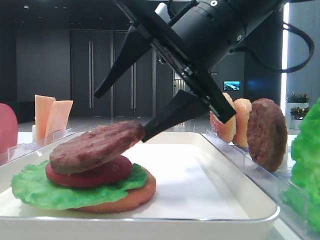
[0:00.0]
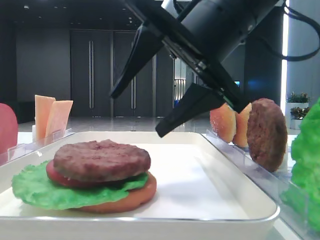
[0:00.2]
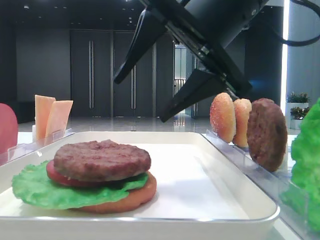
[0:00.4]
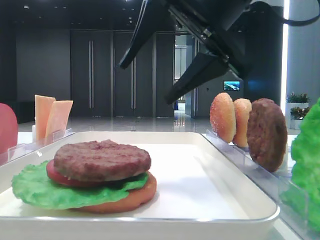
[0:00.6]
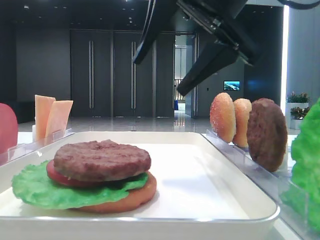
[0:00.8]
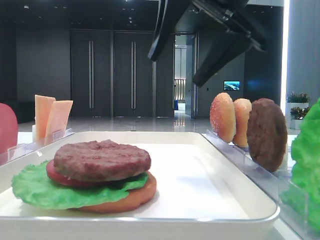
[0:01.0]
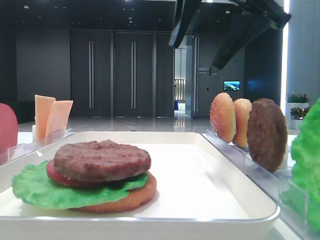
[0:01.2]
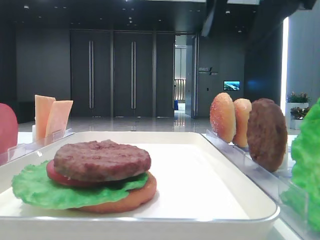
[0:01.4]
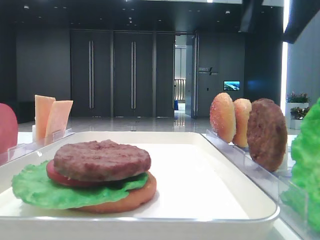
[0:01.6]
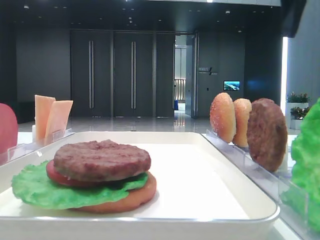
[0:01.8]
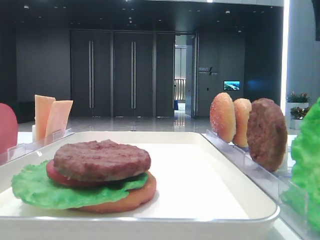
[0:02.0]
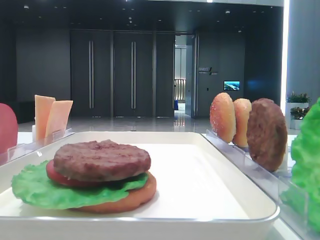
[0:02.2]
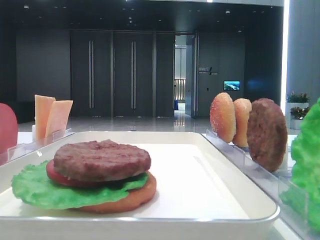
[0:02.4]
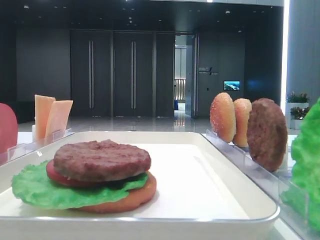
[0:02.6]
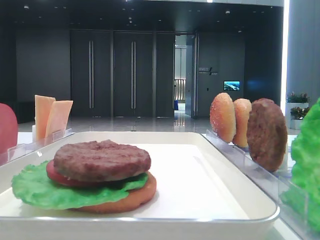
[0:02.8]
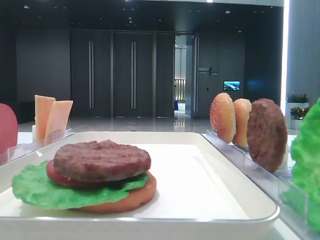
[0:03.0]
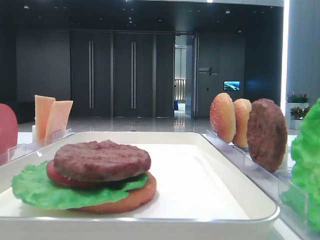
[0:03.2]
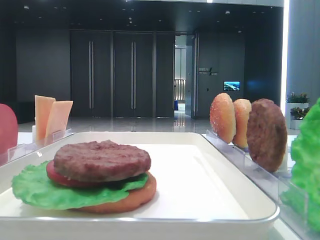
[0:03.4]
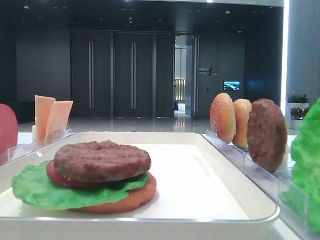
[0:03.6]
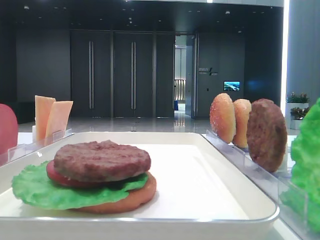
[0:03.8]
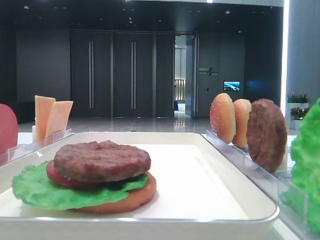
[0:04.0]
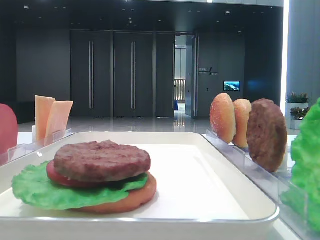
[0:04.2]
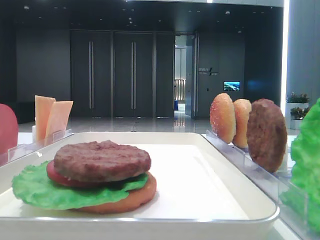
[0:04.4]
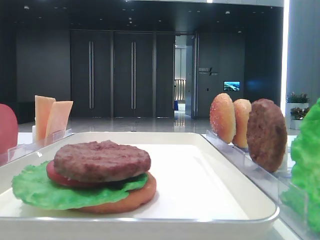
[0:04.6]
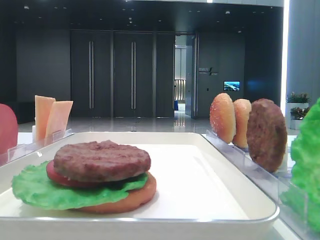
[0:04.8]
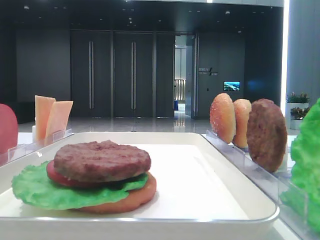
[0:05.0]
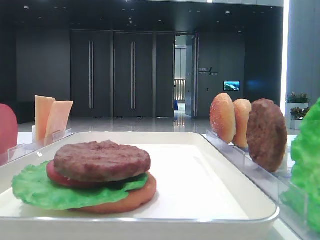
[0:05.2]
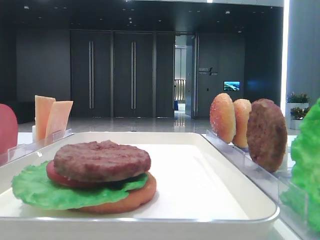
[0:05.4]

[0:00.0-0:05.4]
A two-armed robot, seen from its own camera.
0:00.0 to 0:01.4: The right gripper heads upward and to the right, covering approximately 15 cm.
0:01.4 to 0:02.8: The right gripper travels to the right by some 15 cm.

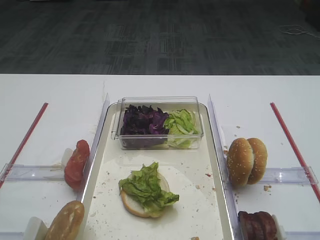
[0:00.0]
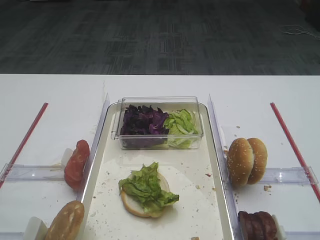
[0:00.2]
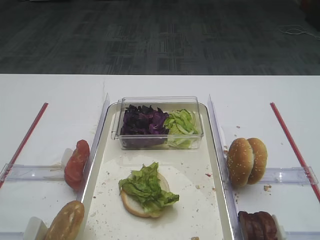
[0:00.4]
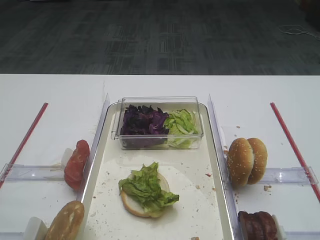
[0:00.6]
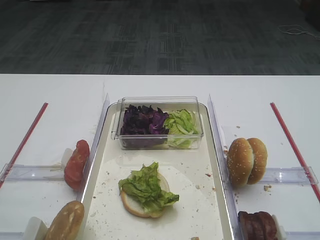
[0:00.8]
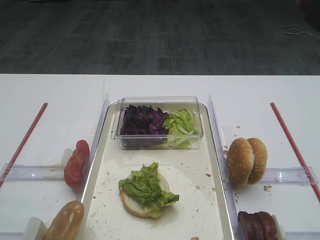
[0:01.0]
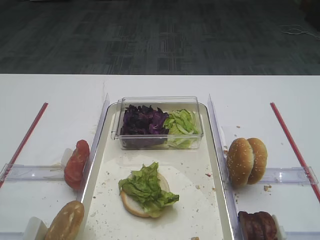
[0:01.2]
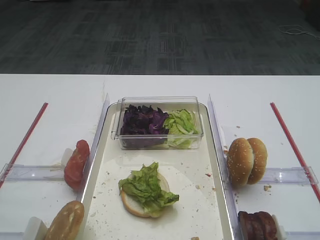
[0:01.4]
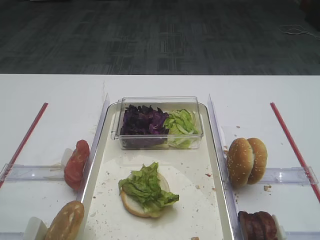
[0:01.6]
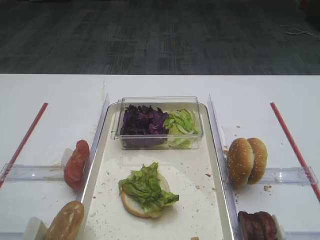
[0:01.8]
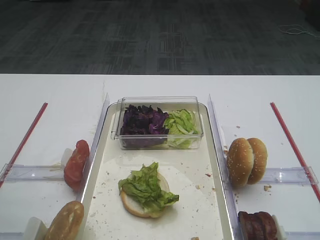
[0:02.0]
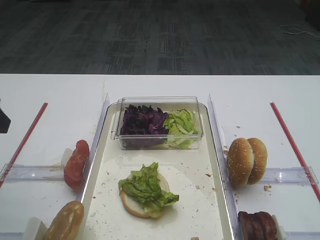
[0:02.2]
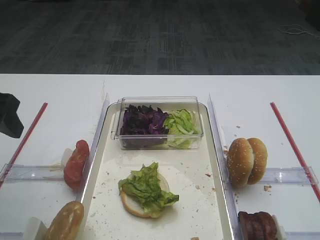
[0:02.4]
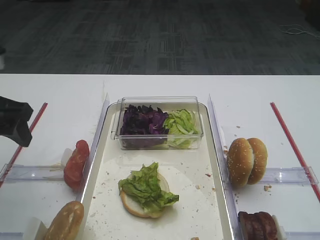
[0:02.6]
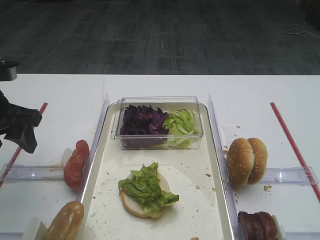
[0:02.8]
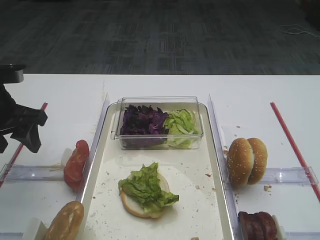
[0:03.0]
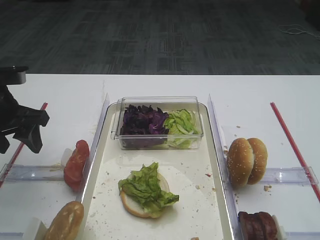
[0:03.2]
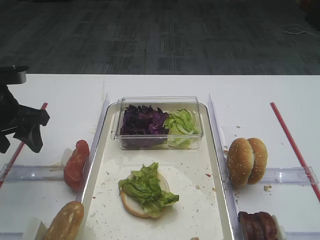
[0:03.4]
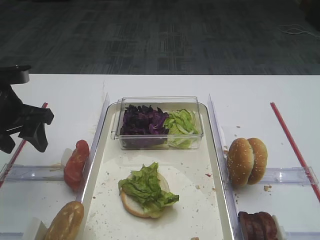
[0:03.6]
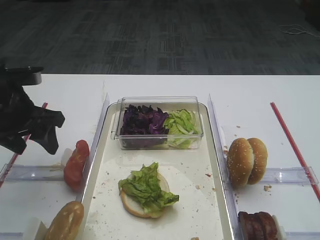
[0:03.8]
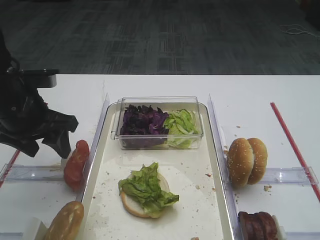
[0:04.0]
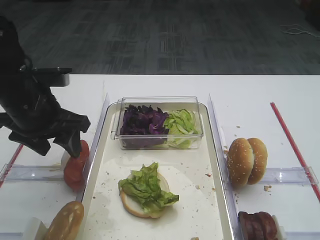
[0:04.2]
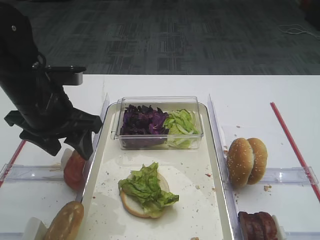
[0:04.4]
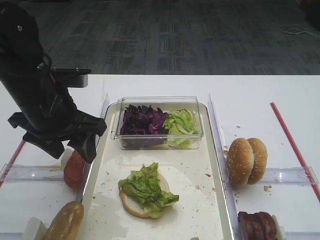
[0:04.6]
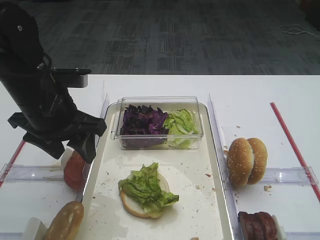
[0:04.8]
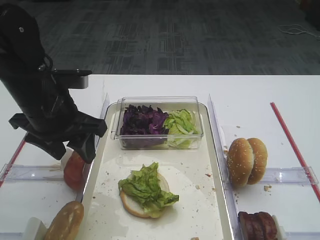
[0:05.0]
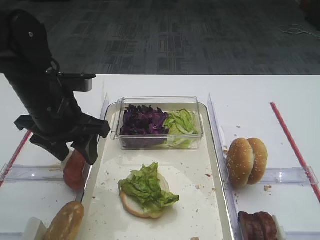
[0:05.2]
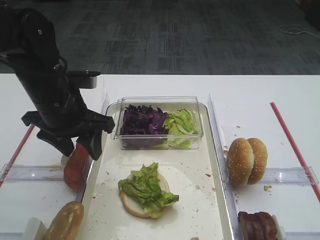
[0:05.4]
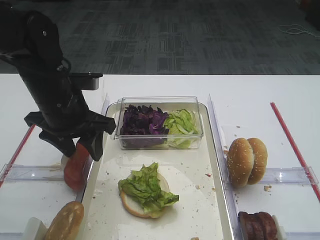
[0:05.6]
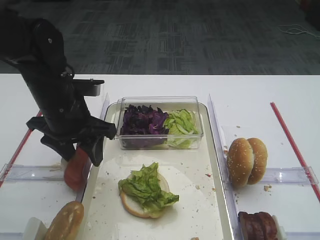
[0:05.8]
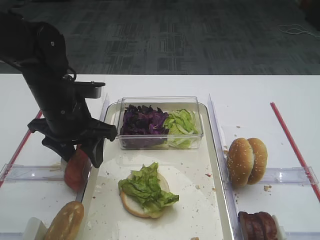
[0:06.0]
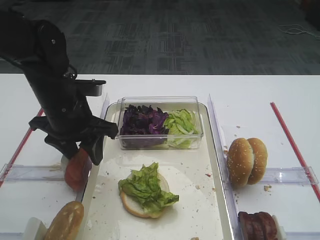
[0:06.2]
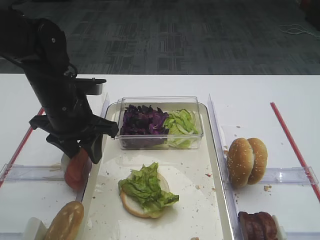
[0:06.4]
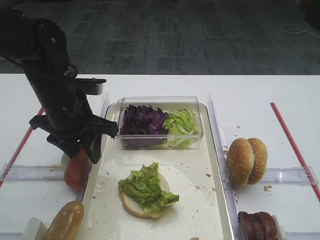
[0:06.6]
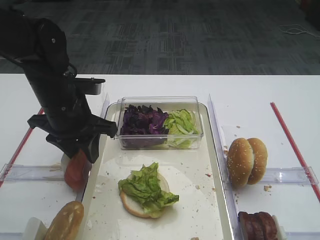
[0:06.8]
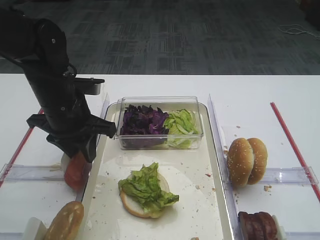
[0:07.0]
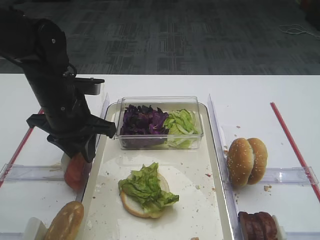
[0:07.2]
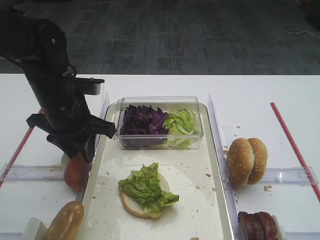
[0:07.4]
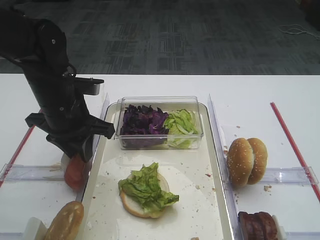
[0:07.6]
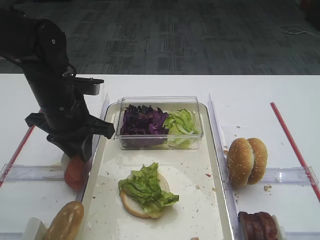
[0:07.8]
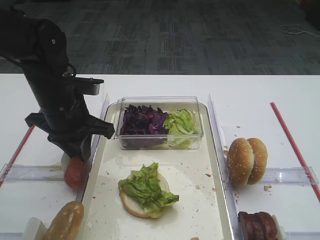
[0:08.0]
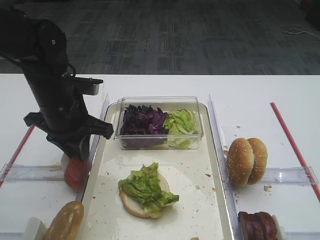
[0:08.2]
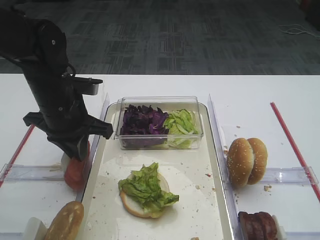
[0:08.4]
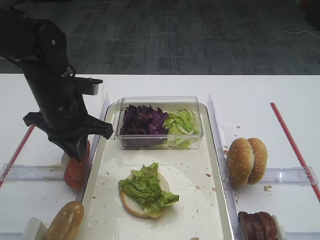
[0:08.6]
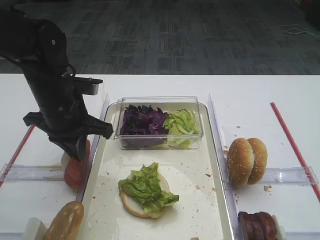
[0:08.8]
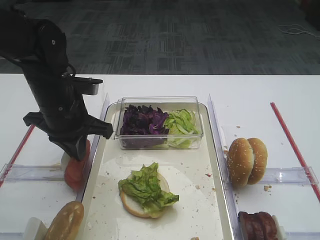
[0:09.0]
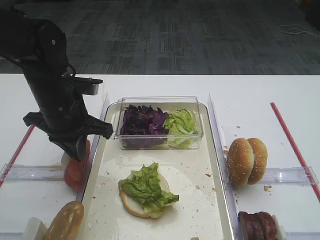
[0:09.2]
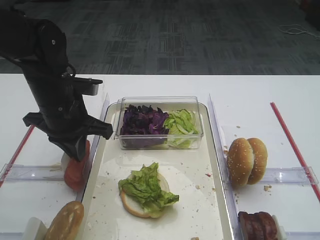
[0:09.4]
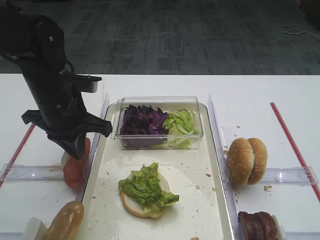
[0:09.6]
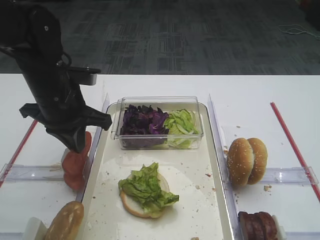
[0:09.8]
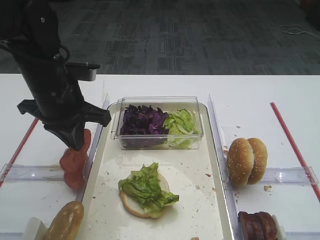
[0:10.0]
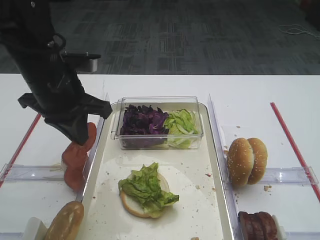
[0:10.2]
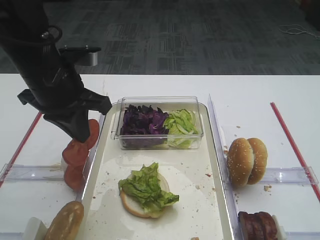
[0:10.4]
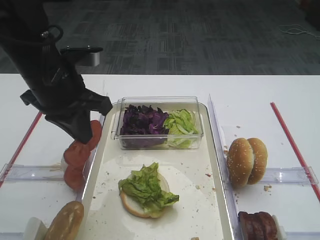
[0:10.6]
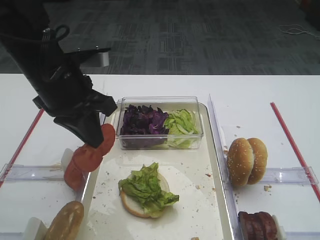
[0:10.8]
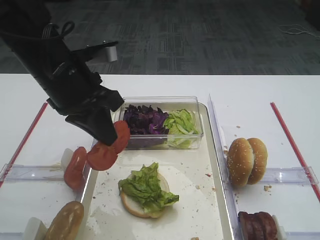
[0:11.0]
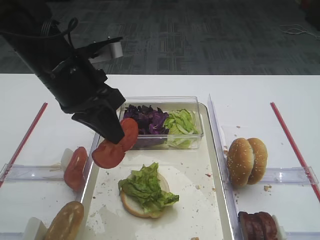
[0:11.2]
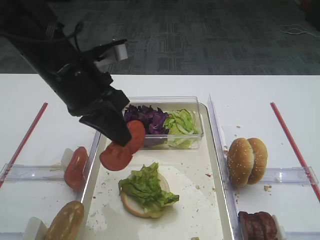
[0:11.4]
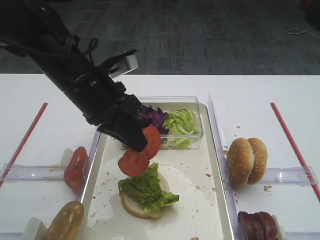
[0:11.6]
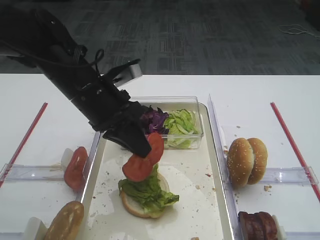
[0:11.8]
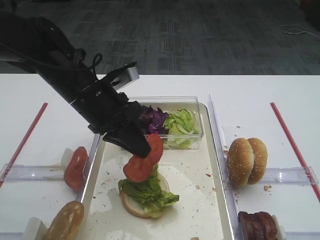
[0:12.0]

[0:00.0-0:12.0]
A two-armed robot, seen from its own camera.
Step, 0:00.0 to 0:10.4: Pick up the tomato slice with the left gripper.
0:01.6 to 0:03.0: The left gripper travels forward by about 25 cm.
0:03.0 to 0:04.4: The left gripper is displaced to the right by approximately 10 cm.
0:04.4 to 0:06.0: The grippers move only a little.
0:06.0 to 0:07.6: The left gripper closes its fingers.
0:07.6 to 0:09.0: The two grippers keep their place.
0:09.0 to 0:10.4: The left gripper moves upward, roughly 5 cm.
0:10.4 to 0:12.0: The left gripper moves to the right, about 5 cm.

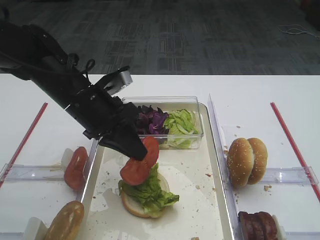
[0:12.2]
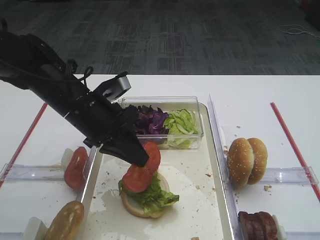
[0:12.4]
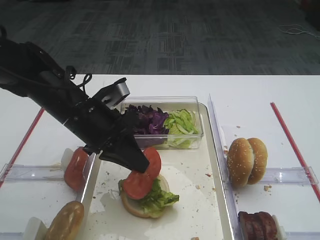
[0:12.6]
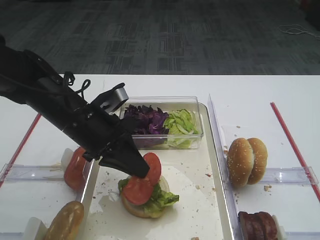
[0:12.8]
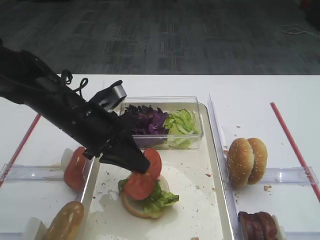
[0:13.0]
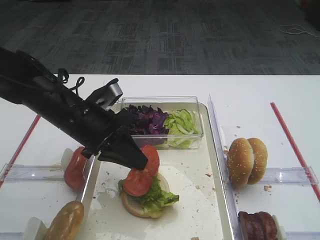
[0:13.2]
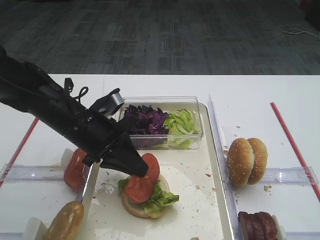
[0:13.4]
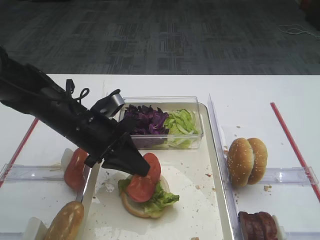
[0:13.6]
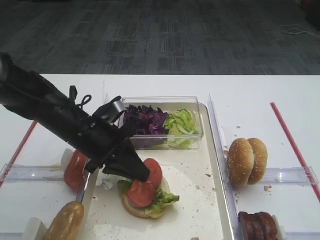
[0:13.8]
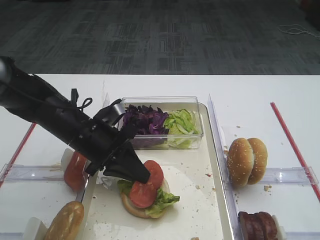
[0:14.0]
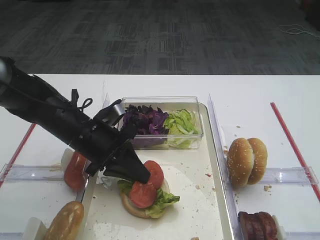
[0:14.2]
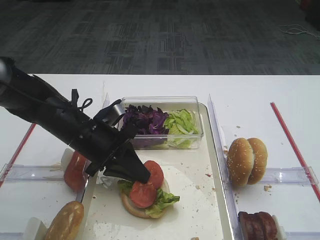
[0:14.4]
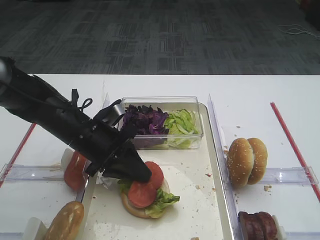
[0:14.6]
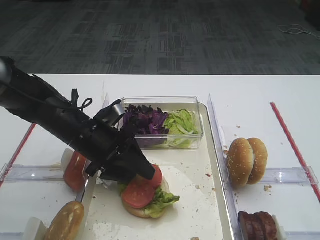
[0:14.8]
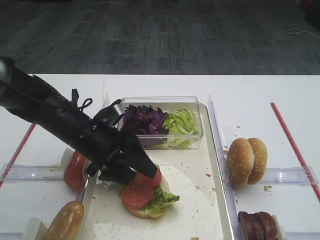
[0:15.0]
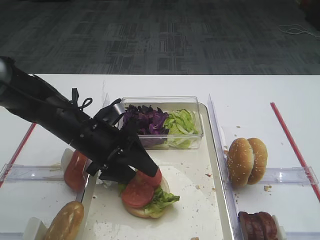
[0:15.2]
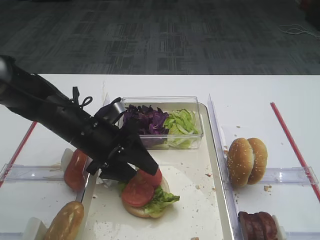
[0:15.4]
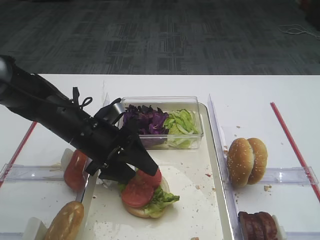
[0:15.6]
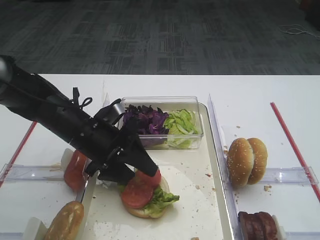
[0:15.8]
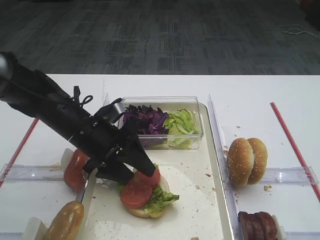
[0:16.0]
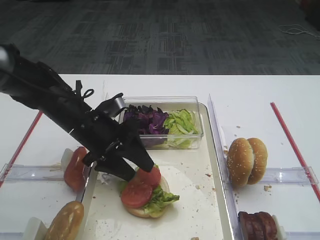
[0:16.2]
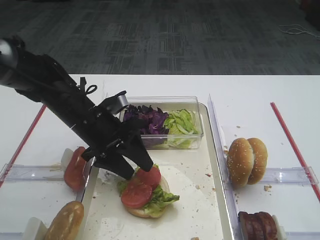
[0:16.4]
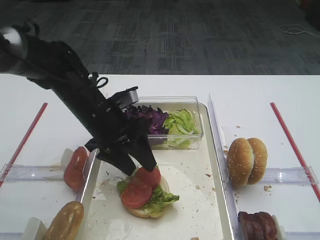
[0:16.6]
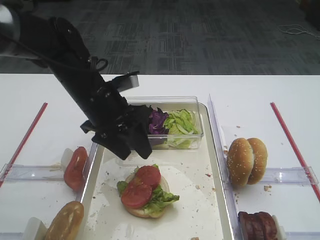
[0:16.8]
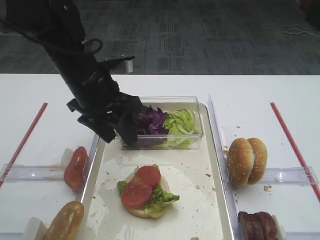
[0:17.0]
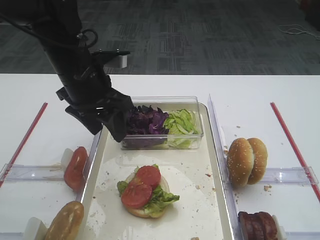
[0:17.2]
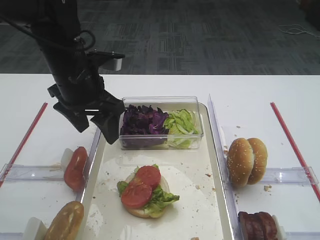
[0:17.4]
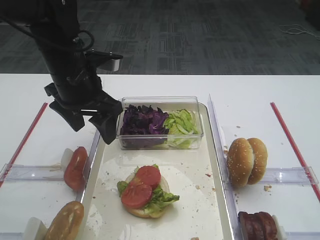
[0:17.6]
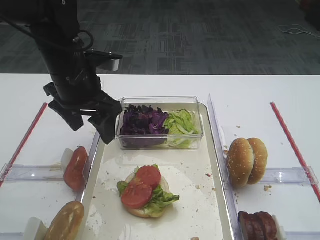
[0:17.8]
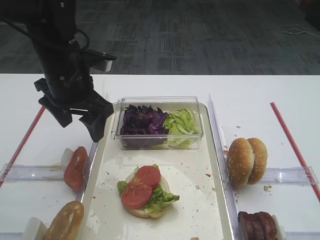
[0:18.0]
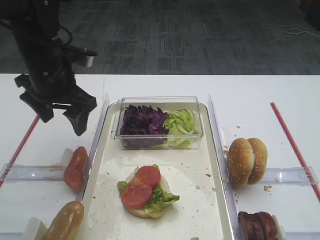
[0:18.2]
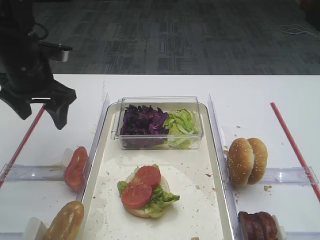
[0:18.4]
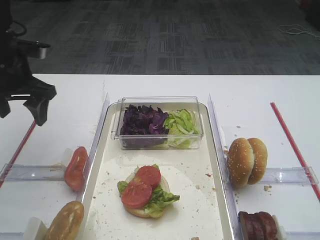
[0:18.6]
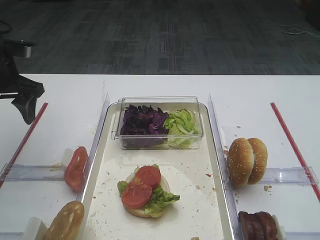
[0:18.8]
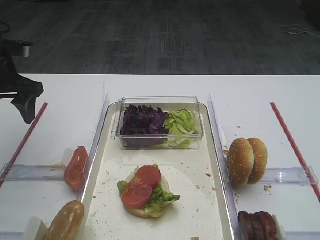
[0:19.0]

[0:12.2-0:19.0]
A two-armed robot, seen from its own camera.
Step, 0:12.2 to 0:17.0: Place the tomato slice on the lettuce leaf with the left gripper.
0:12.2 to 0:13.6: The grippers make only small movements.
0:13.6 to 0:15.0: The left gripper opens up.
0:15.0 to 0:16.2: The grippers make only small movements.
0:16.2 to 0:17.6: The left gripper is displaced upward by roughly 10 cm.
0:17.6 to 0:19.0: The left gripper moves to the left, some 15 cm.
